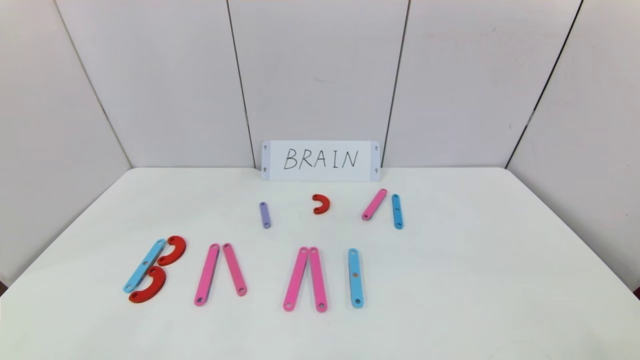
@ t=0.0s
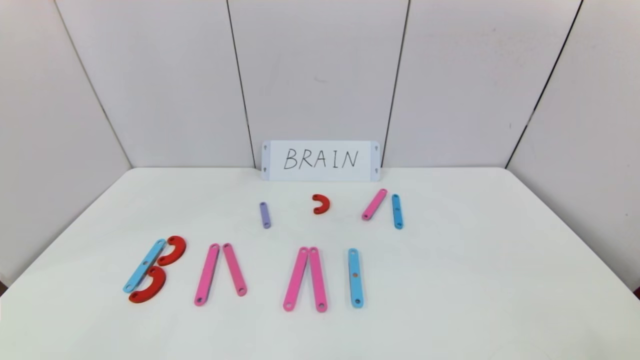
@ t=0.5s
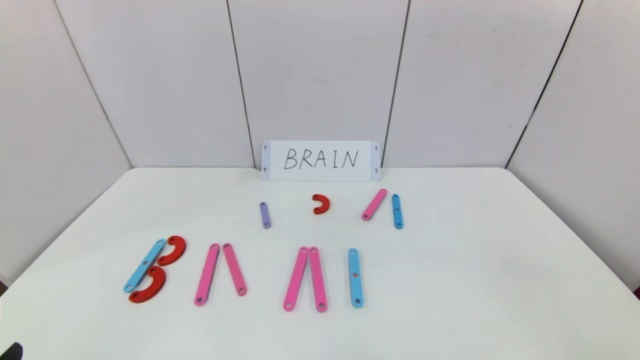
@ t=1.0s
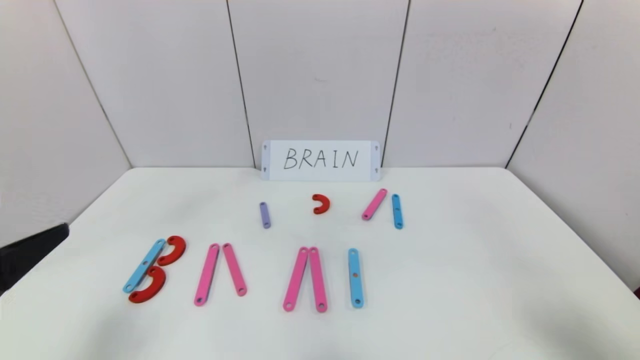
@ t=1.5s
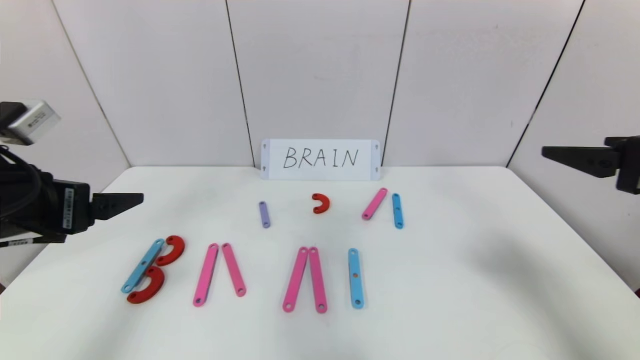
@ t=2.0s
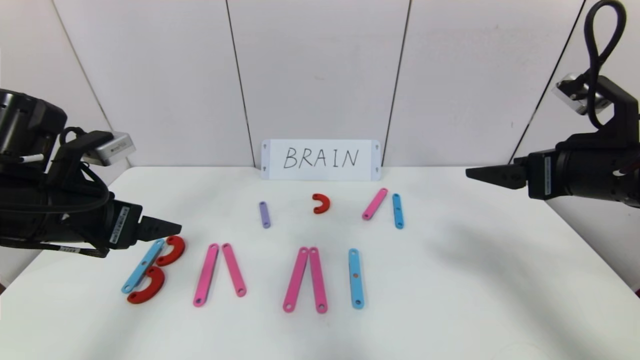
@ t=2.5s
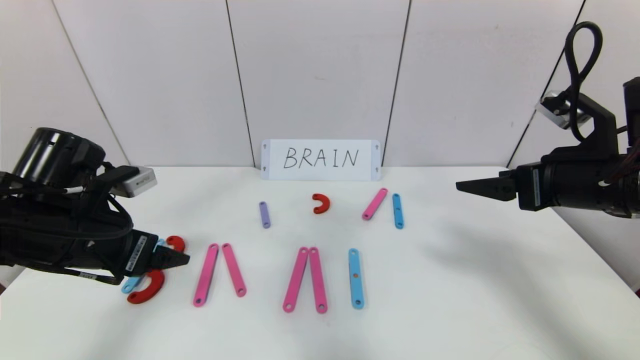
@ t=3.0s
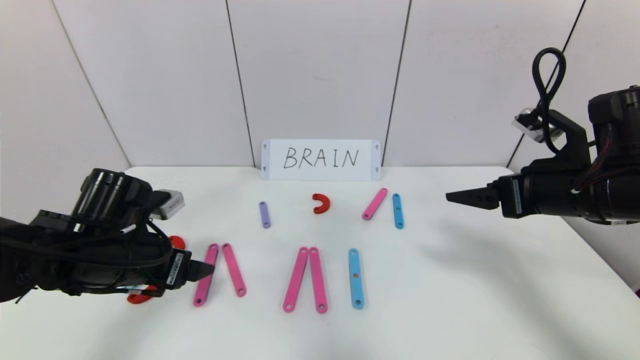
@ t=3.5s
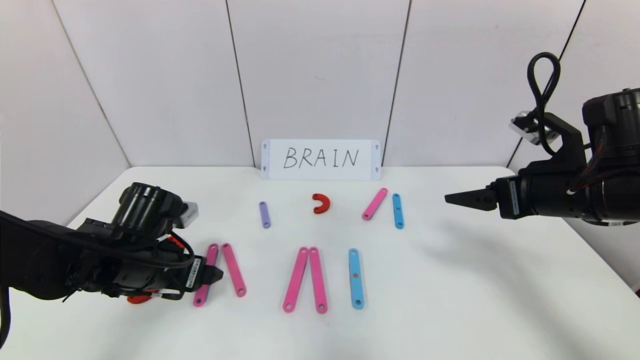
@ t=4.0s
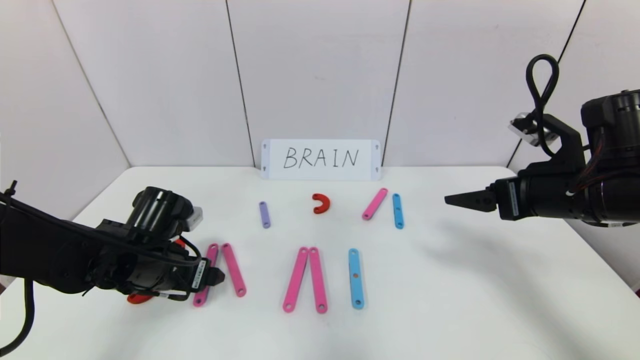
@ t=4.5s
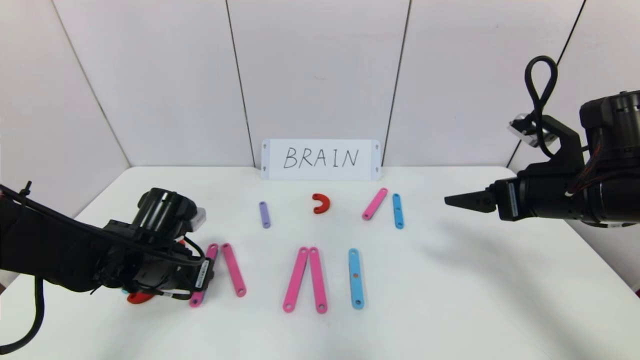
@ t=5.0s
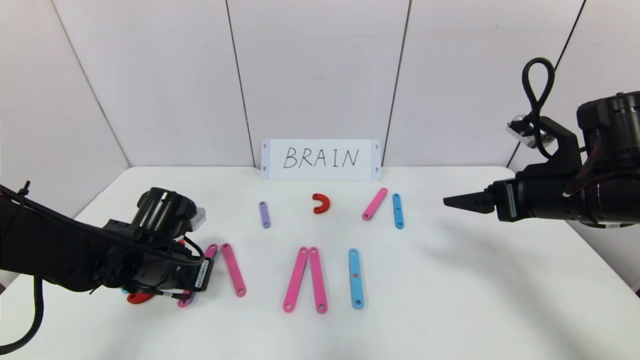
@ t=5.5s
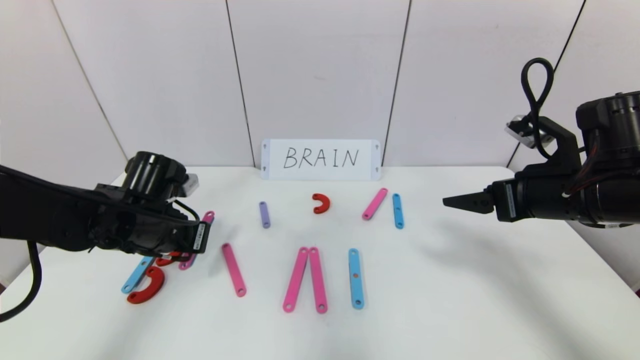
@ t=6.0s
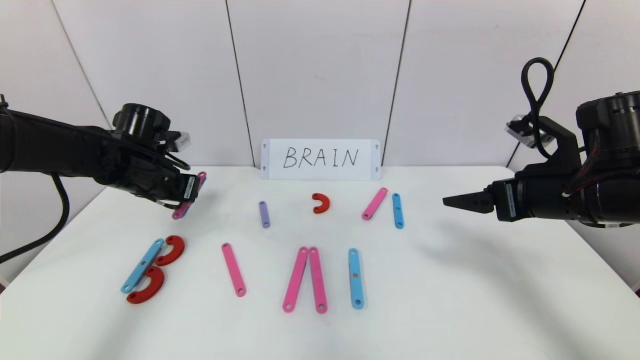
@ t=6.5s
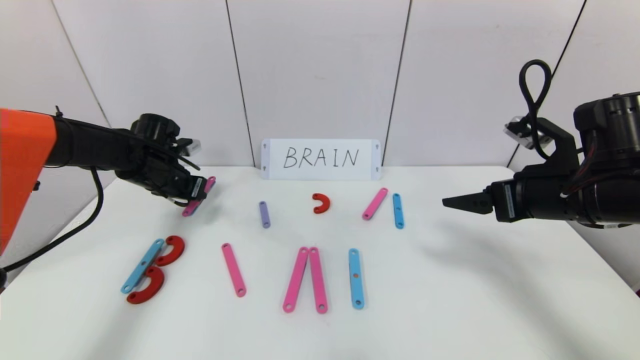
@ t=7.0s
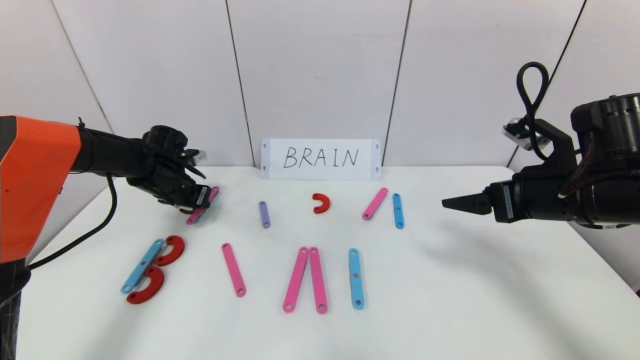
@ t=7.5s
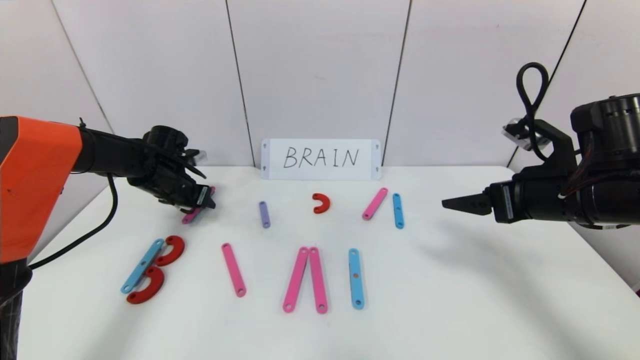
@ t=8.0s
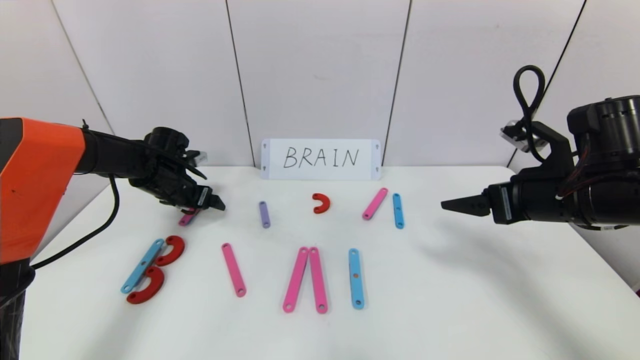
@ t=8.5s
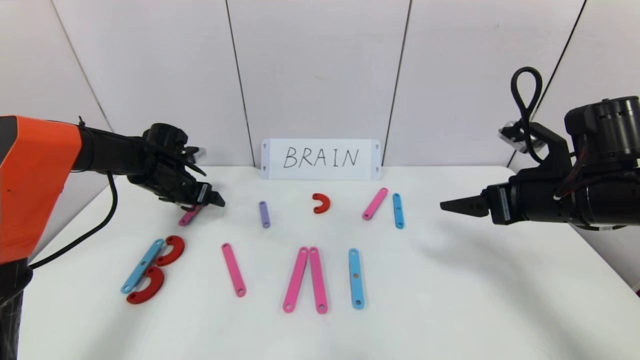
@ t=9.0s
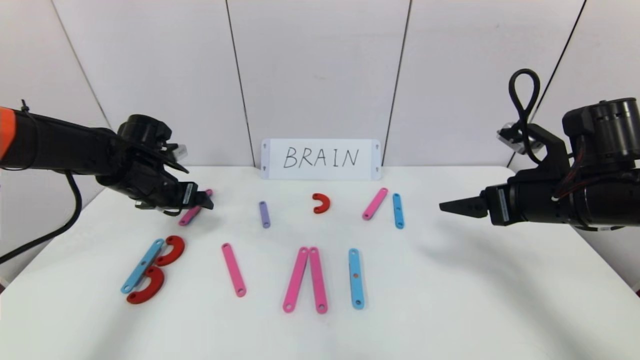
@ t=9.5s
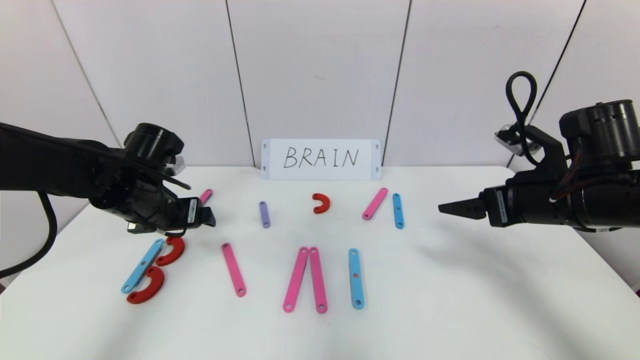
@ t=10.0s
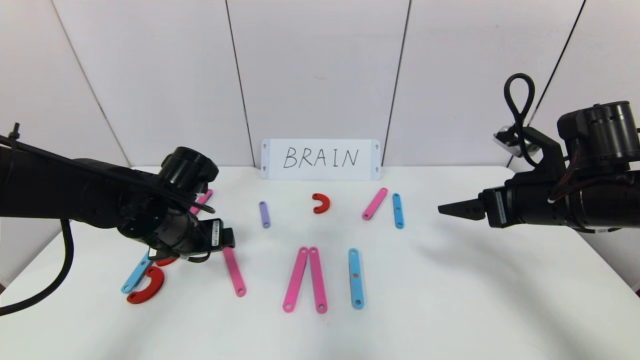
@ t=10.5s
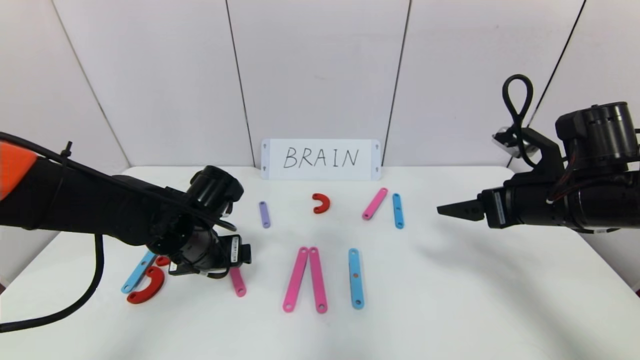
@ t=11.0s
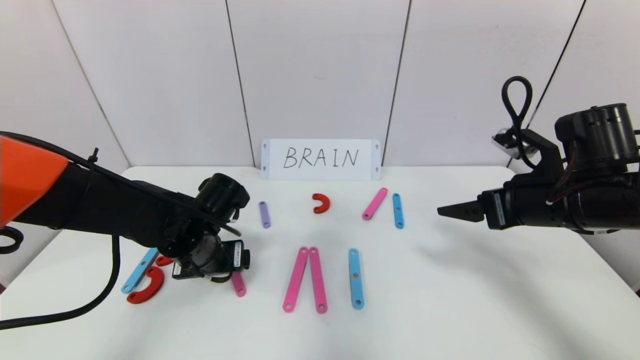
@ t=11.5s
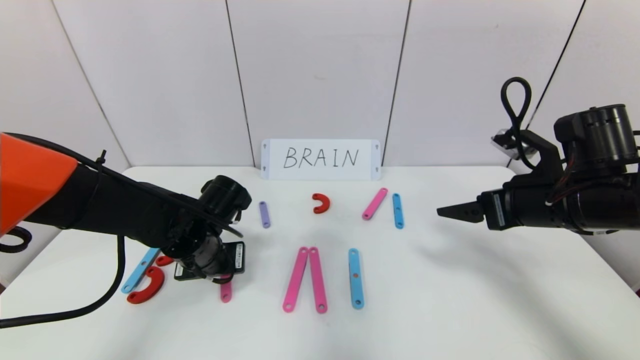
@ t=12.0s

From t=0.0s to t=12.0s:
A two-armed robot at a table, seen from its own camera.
Task of the whole recording: rearrange the word baai as brain.
From t=0.0s to t=2.0s: Both grippers move forward and upward, approximately 30 cm.
From t=2.0s to t=4.0s: The right gripper moves forward and downward, approximately 10 cm, while the left gripper moves downward, forward and to the right, approximately 15 cm.
From t=4.0s to t=6.0s: The left gripper moves approximately 5 cm, and closes its fingers.
From t=6.0s to t=8.0s: The left gripper is displaced forward and to the left by about 15 cm, and opens its fingers.
From t=8.0s to t=10.0s: The left gripper shifts approximately 10 cm backward, and opens.
From t=10.0s to t=12.0s: The left gripper moves to the right and downward, approximately 10 cm, and closes its fingers.

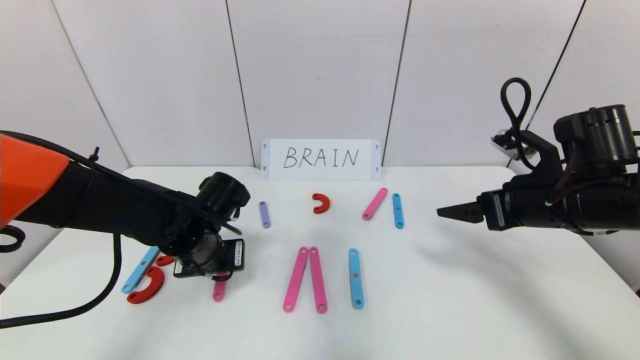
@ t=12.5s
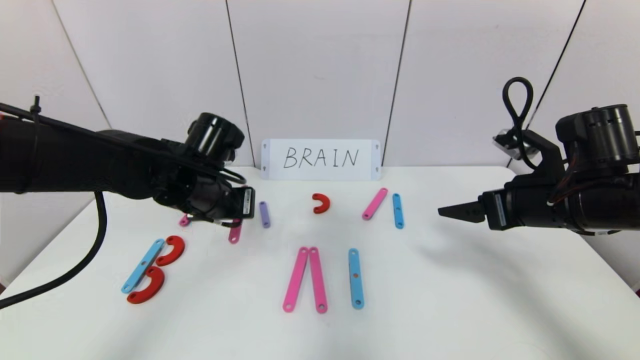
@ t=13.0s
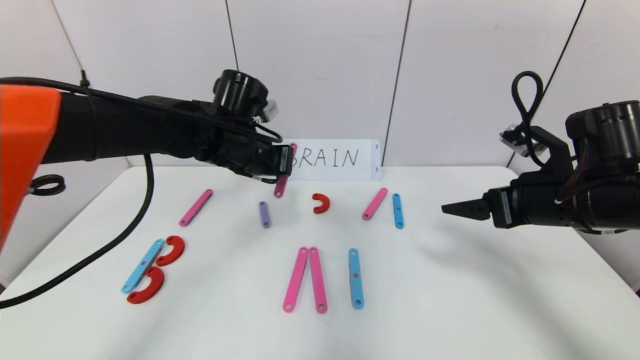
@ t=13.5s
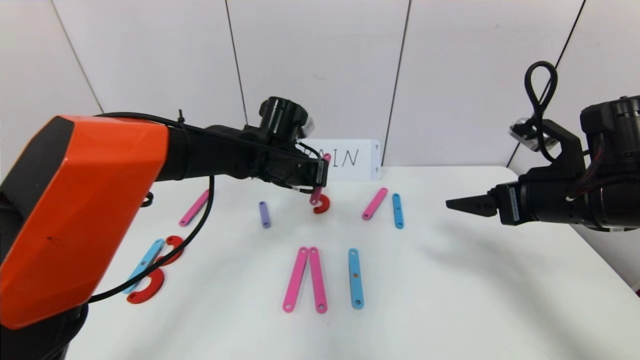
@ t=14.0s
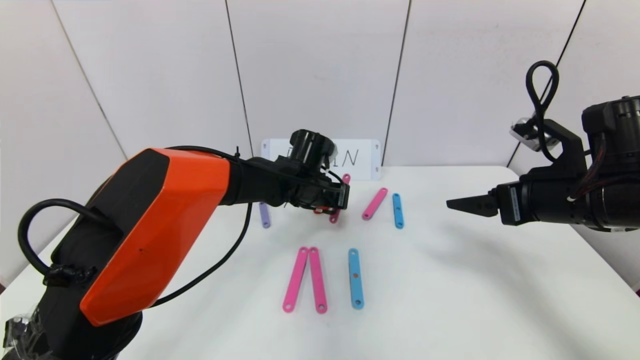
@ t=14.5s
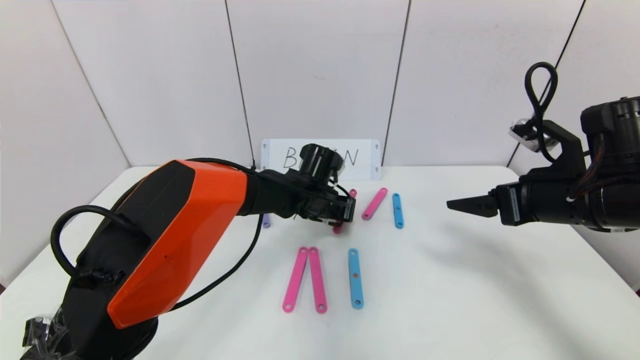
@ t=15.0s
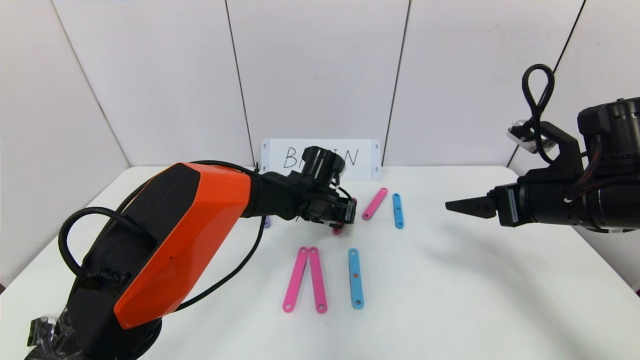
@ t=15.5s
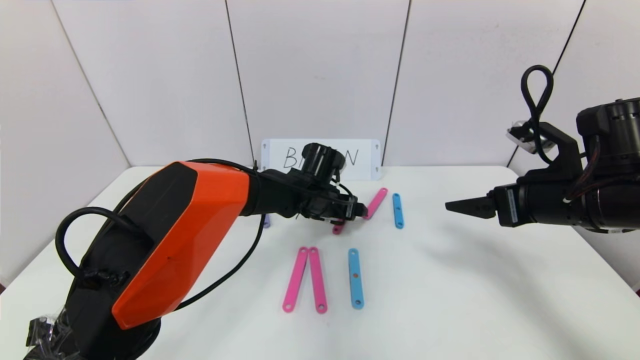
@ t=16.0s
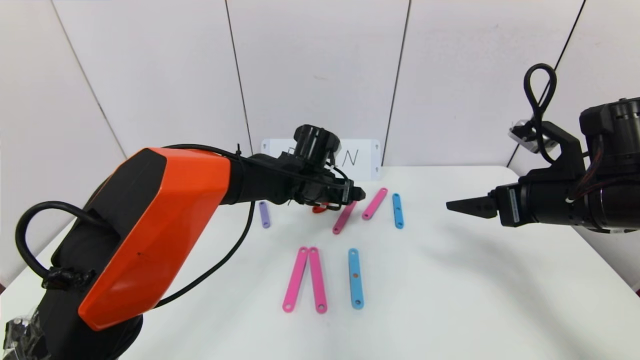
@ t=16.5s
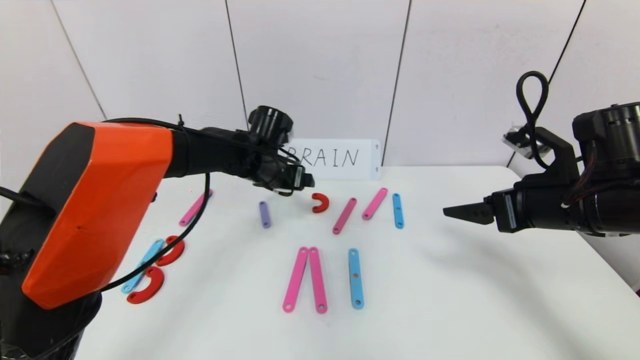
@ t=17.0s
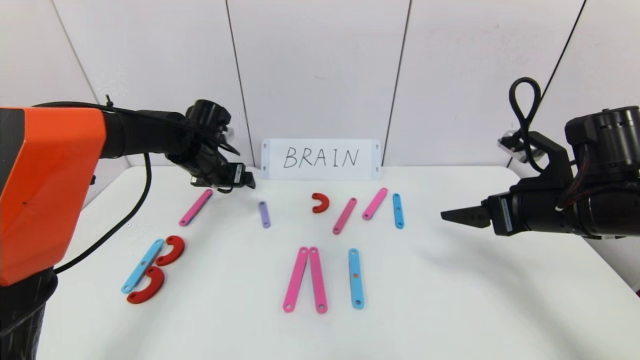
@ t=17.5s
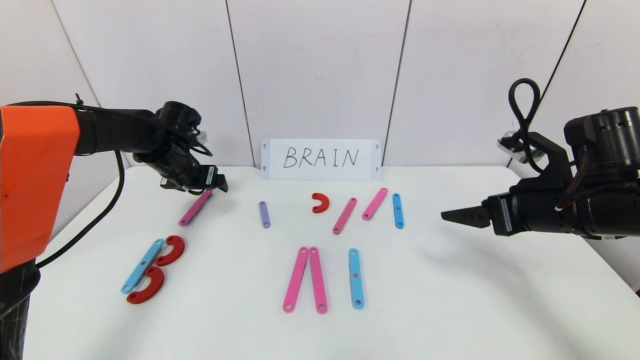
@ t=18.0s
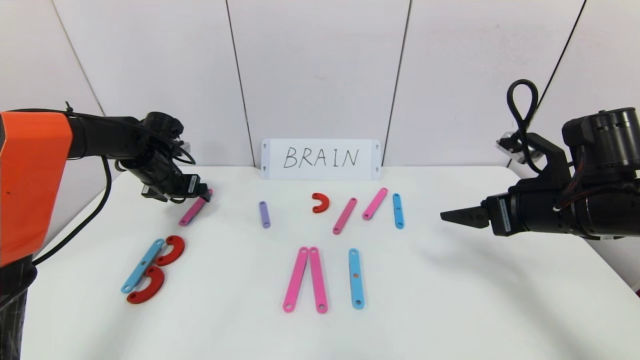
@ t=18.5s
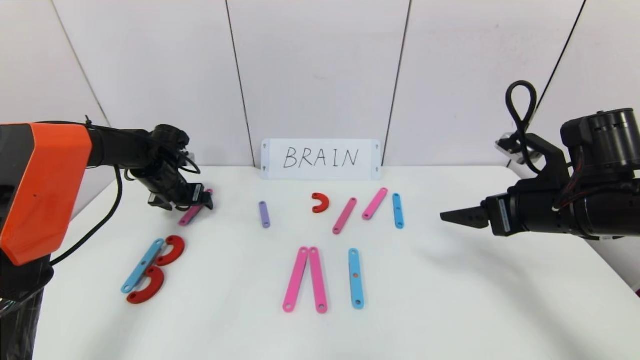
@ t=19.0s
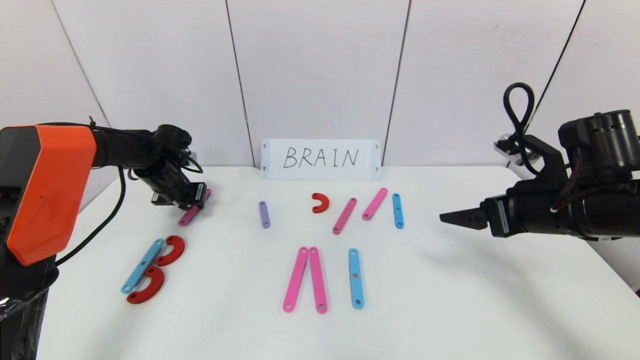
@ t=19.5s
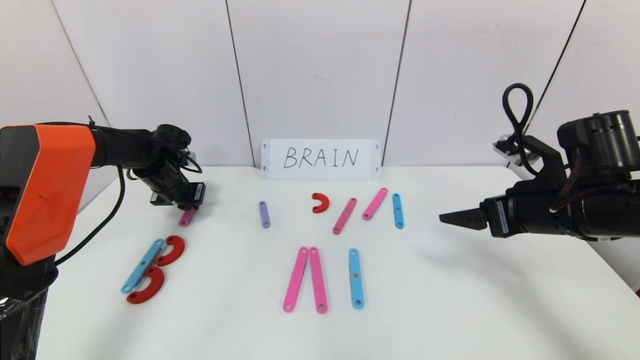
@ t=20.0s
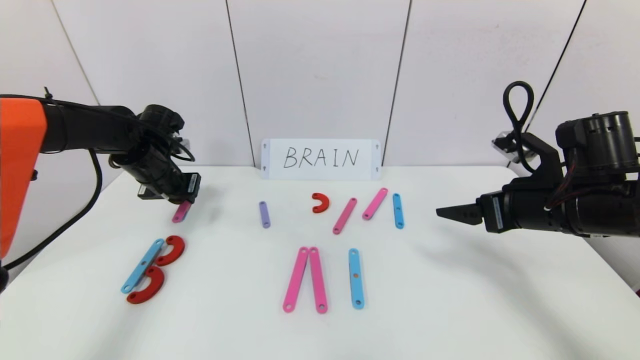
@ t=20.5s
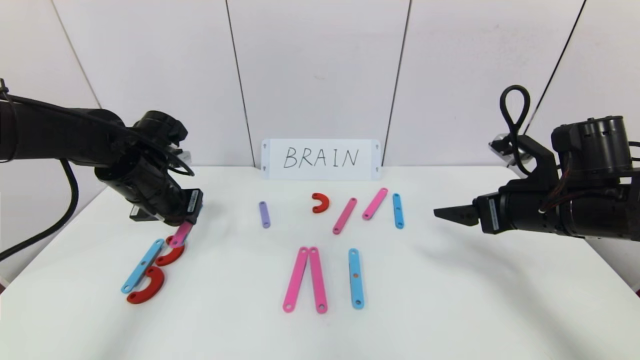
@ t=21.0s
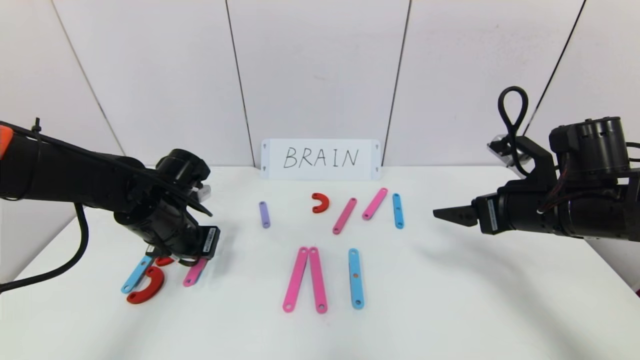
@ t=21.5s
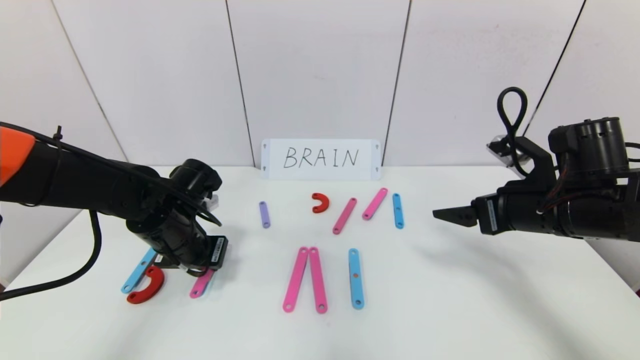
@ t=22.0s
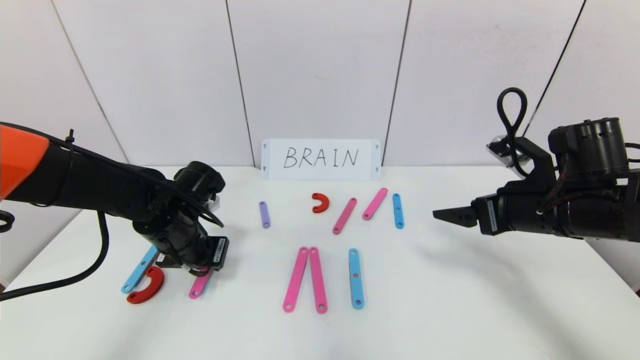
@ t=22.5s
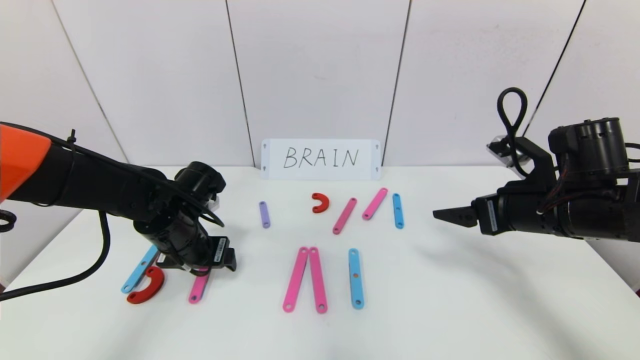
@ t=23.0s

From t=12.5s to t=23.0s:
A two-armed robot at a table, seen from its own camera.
Task of the whole recording: rearrange the word baai as brain.
Step, from t=12.5s to t=15.5s: Disassemble the second character A.
From t=12.5s to t=14.5s: The left gripper is displaced to the right and forward by approximately 20 cm.
From t=14.5s to t=16.5s: The left gripper opens.
From t=16.5s to t=19.0s: The left gripper travels to the left by some 30 cm.
From t=19.0s to t=21.0s: The left gripper moves backward, upward and to the right, approximately 15 cm, and closes its fingers.
From t=21.0s to t=23.0s: The left gripper shifts approximately 5 cm downward, and opens up.
